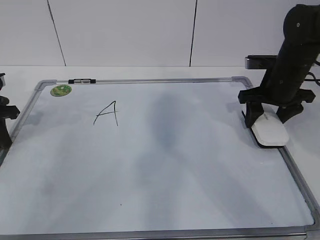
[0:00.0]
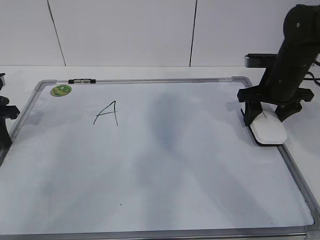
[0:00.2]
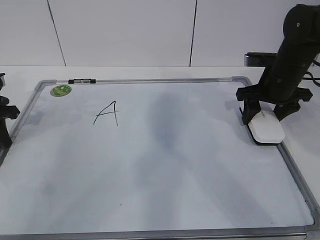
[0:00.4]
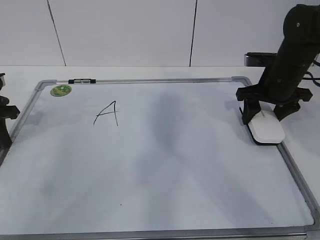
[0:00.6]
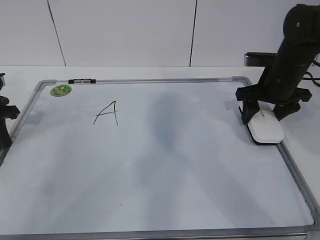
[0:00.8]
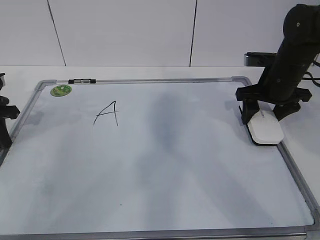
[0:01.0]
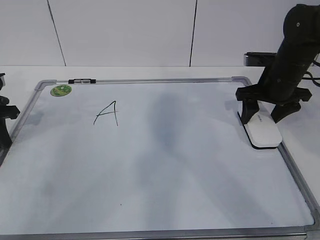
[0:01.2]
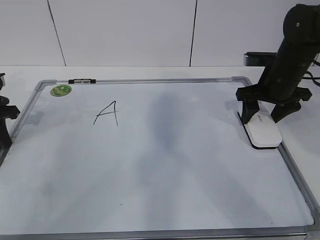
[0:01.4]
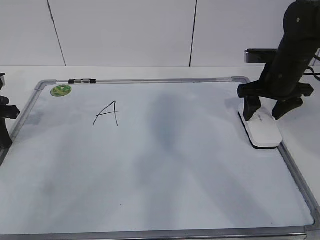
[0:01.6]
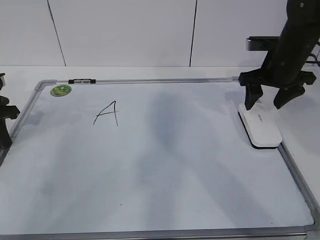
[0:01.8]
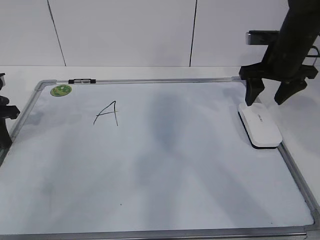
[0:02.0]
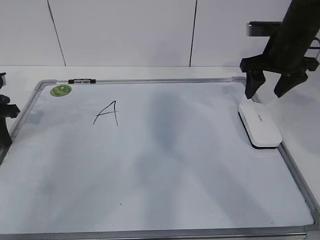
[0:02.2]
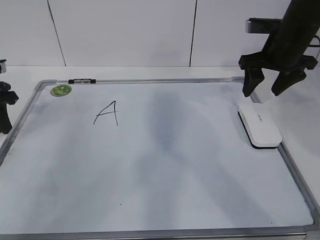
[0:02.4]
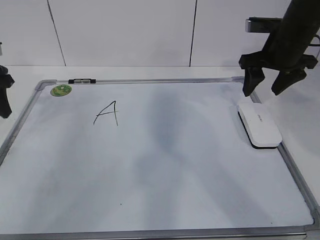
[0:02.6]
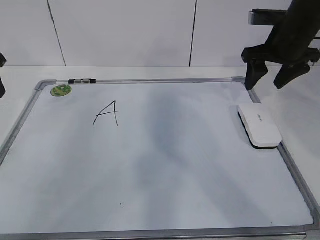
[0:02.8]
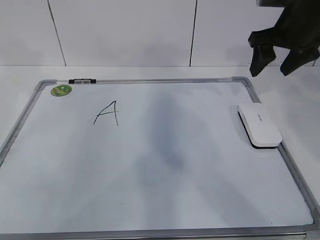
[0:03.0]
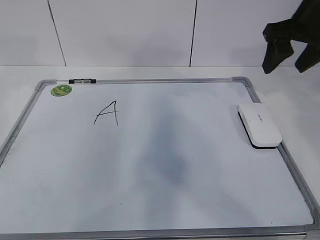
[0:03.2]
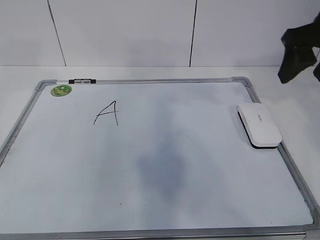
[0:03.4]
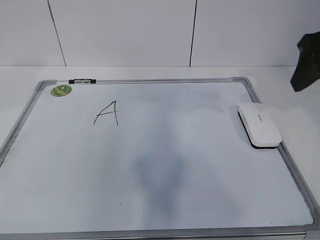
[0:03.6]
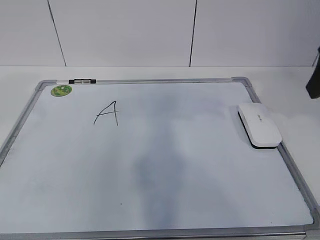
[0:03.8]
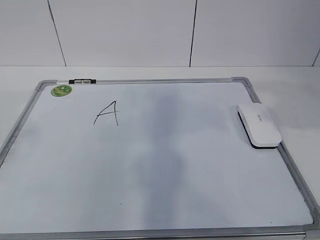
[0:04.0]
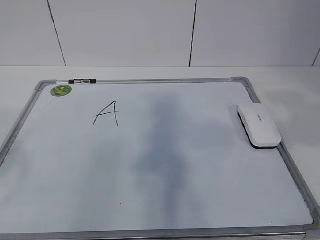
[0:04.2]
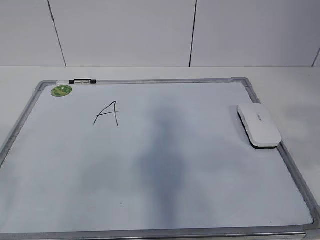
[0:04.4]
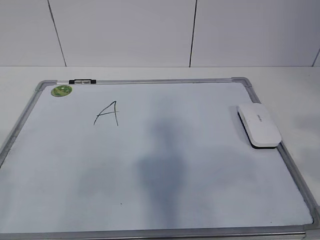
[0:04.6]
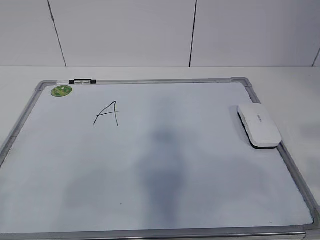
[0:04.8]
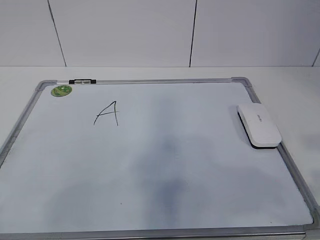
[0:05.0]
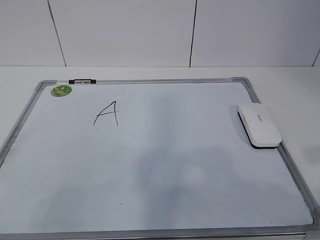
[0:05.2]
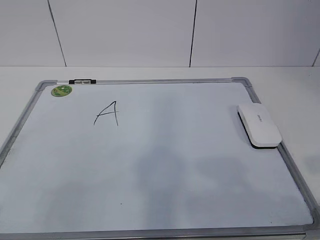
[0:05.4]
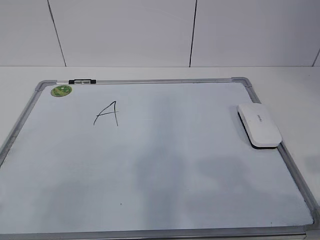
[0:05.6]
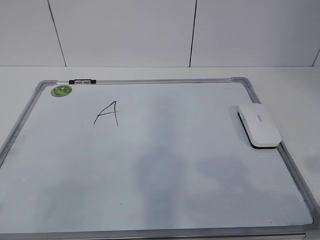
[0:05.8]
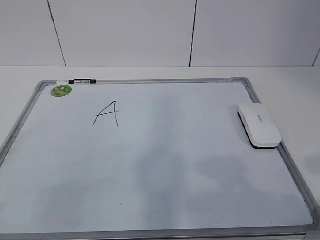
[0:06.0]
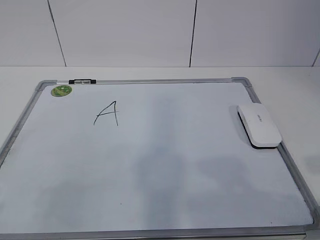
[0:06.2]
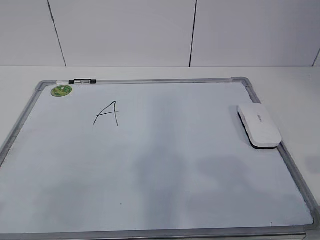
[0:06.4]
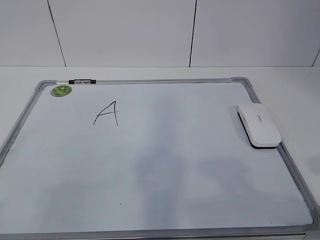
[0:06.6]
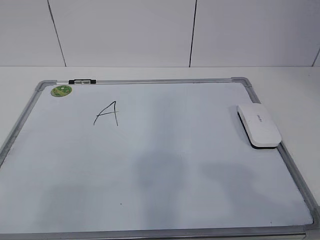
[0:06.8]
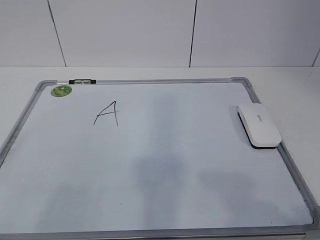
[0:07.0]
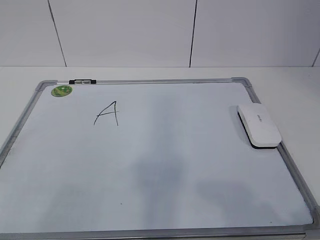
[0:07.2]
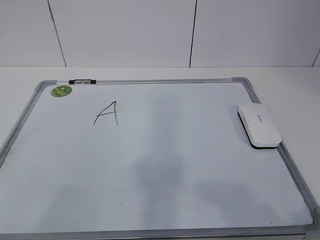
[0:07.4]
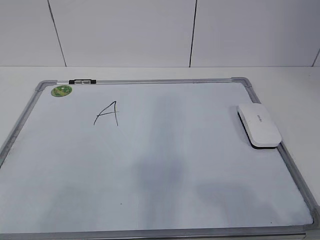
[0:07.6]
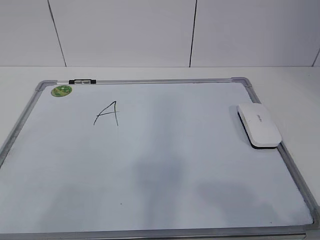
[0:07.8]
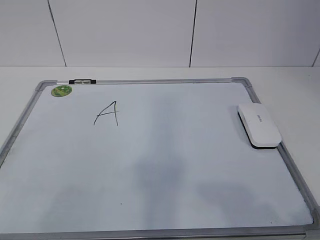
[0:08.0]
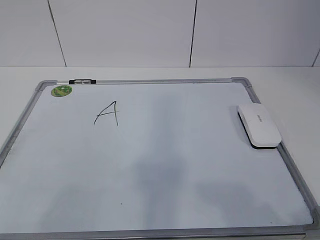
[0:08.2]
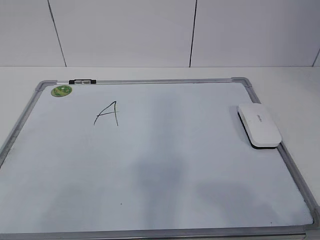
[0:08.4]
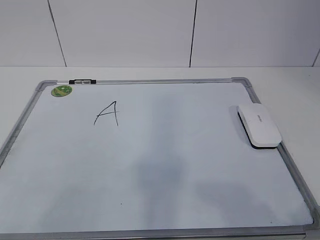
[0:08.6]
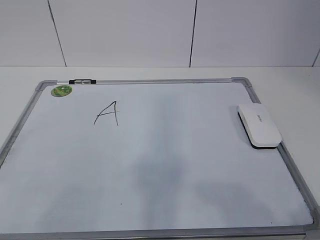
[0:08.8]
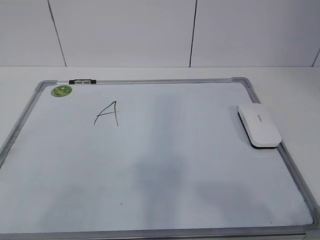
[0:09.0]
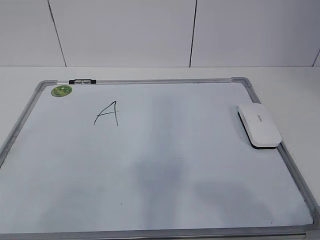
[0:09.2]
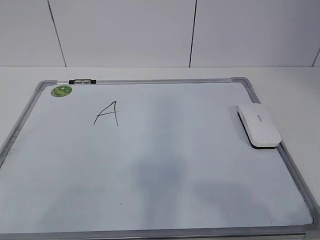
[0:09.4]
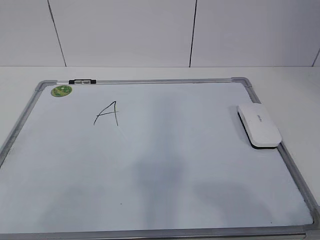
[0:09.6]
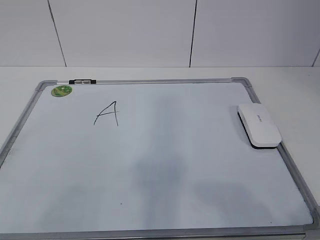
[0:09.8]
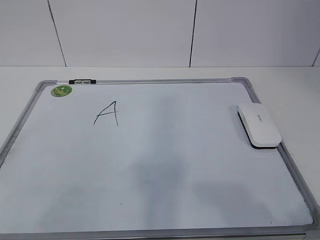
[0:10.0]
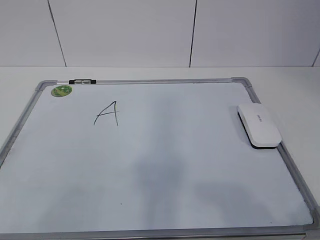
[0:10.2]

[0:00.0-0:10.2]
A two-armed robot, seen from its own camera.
Task of the whole recording: pick up the eraser on the blackboard and erase the letter "a".
0:00.0 to 0:01.4: The right gripper opens its fingers.
0:01.4 to 0:03.0: Both grippers travel together upward, some 10 cm. The left gripper opens up.
0:03.0 to 0:04.4: The two grippers go about 30 cm backward.
0:04.4 to 0:05.8: The left gripper travels downward by roughly 5 cm; the right gripper goes about 10 cm downward.
0:07.2 to 0:10.2: The two grippers keep their place.
